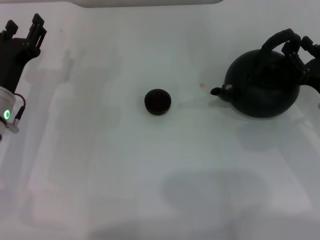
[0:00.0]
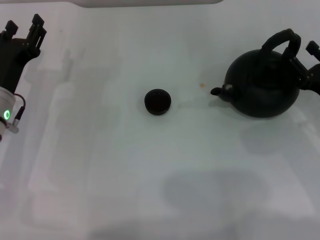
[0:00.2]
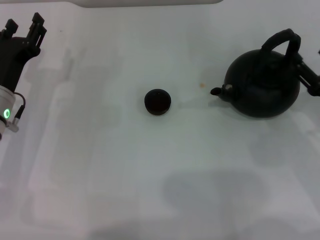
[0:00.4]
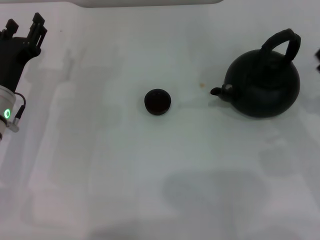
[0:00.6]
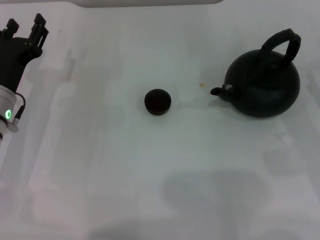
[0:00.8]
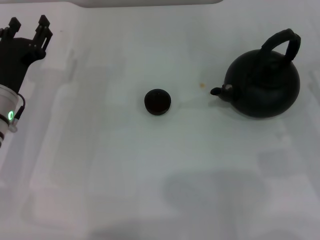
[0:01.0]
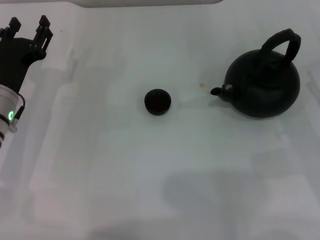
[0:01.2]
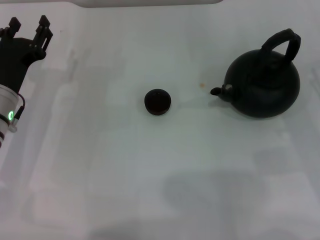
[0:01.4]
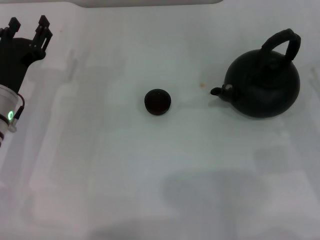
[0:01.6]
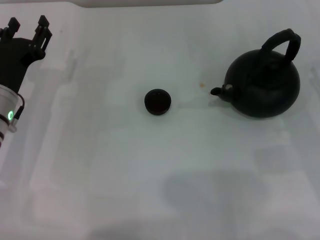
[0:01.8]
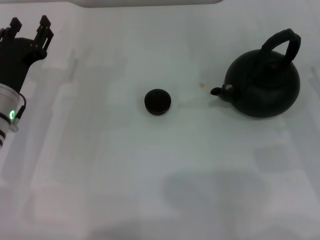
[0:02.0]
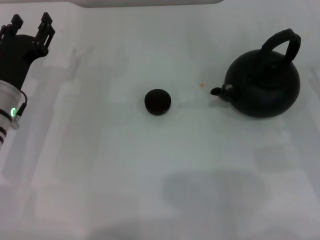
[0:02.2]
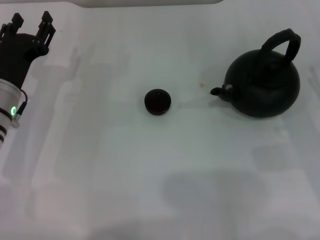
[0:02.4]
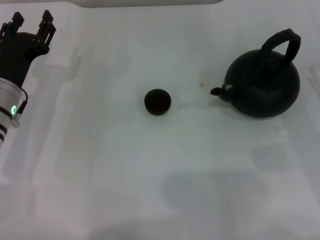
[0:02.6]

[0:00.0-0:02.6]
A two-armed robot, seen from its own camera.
Task of the whole recording: Grasp the handle of the teapot with one hand and pour tea into the teacup.
0.0 to 1.2 s: The right gripper changes place by approximately 5 cm, and opens up.
1.2 to 2.6 s: Neither gripper changes place.

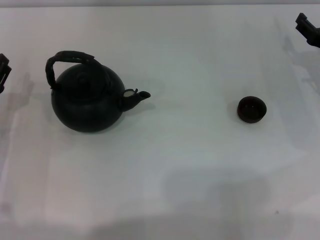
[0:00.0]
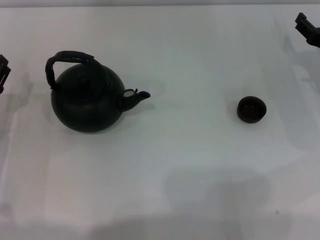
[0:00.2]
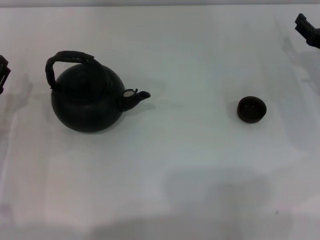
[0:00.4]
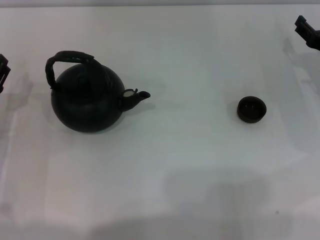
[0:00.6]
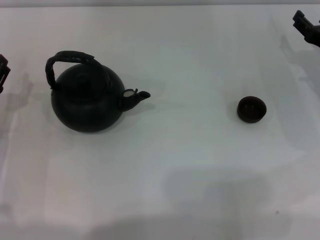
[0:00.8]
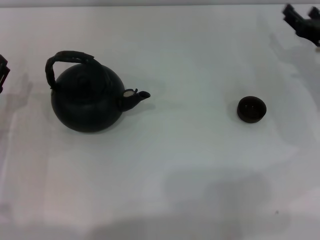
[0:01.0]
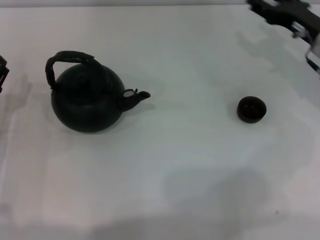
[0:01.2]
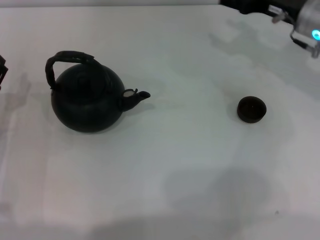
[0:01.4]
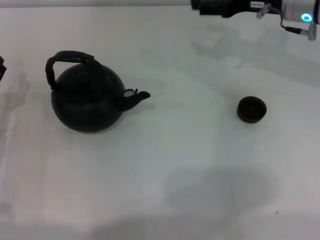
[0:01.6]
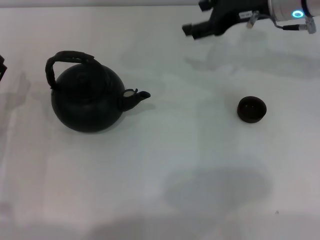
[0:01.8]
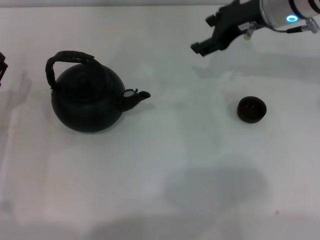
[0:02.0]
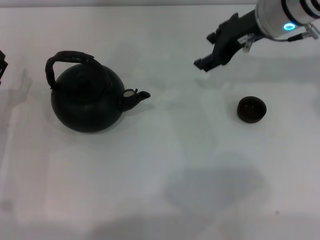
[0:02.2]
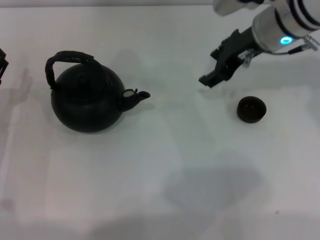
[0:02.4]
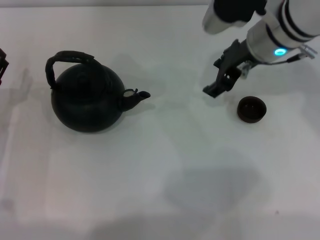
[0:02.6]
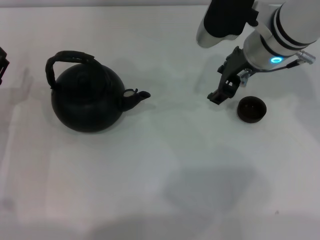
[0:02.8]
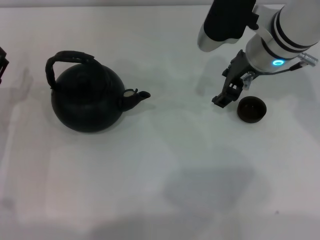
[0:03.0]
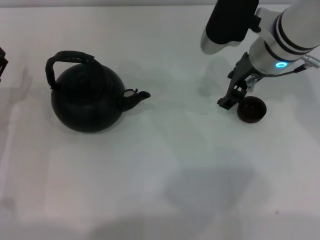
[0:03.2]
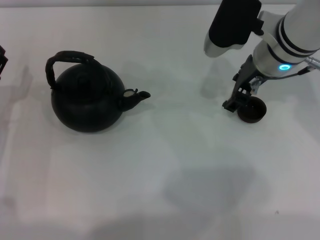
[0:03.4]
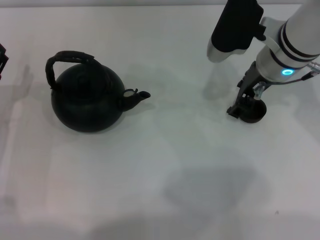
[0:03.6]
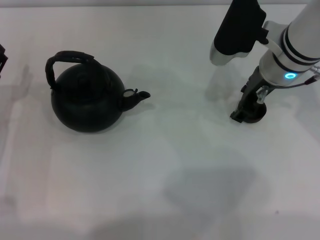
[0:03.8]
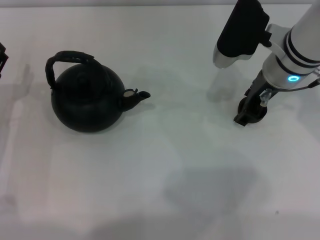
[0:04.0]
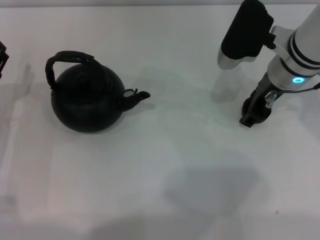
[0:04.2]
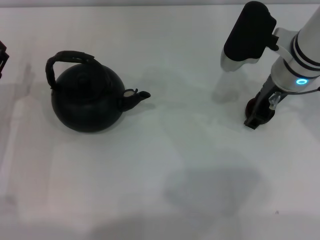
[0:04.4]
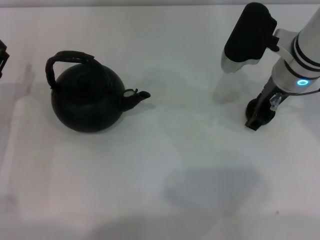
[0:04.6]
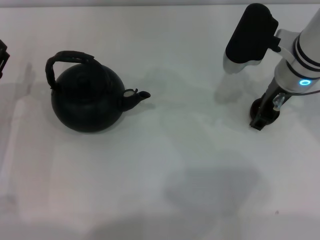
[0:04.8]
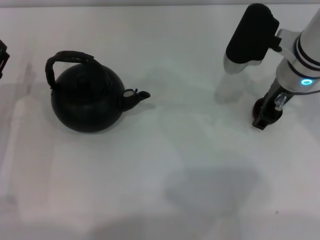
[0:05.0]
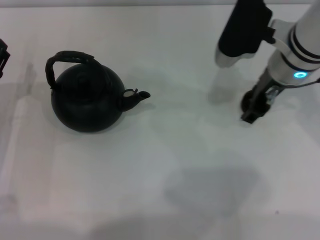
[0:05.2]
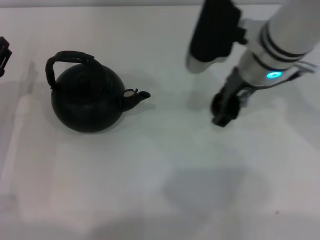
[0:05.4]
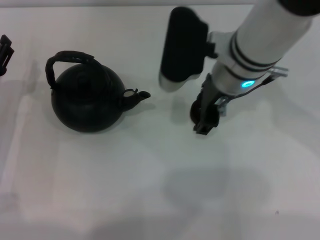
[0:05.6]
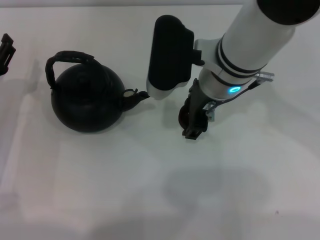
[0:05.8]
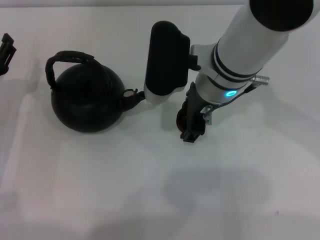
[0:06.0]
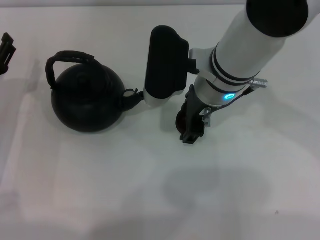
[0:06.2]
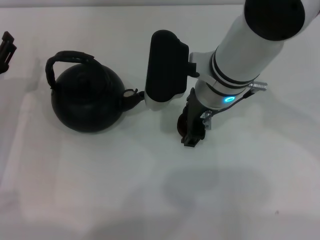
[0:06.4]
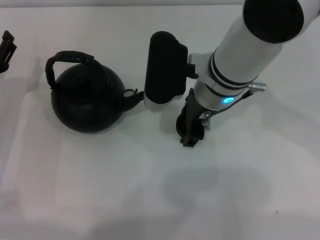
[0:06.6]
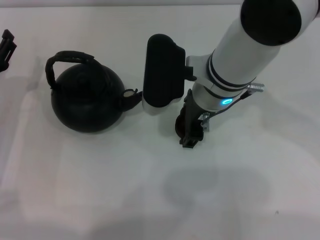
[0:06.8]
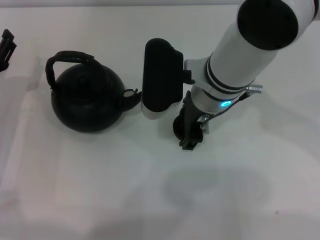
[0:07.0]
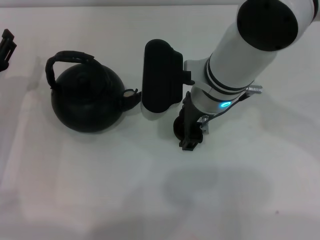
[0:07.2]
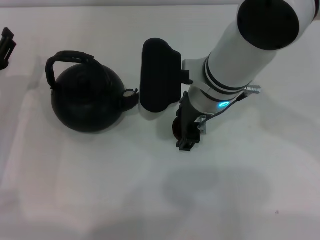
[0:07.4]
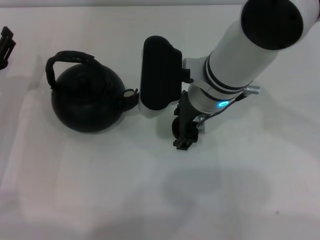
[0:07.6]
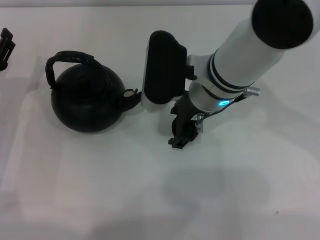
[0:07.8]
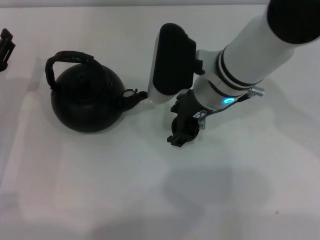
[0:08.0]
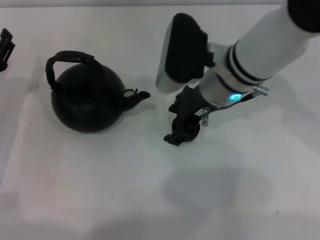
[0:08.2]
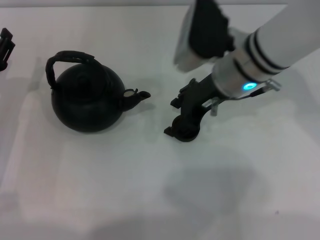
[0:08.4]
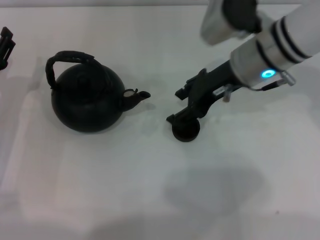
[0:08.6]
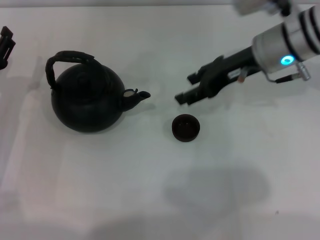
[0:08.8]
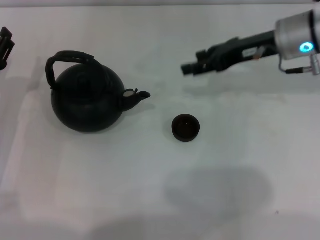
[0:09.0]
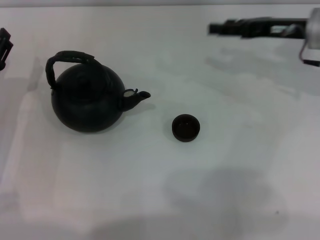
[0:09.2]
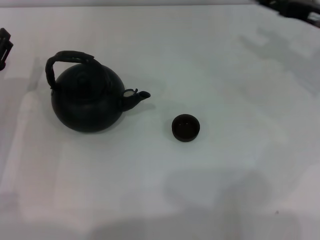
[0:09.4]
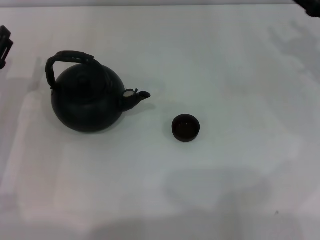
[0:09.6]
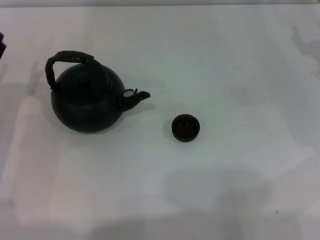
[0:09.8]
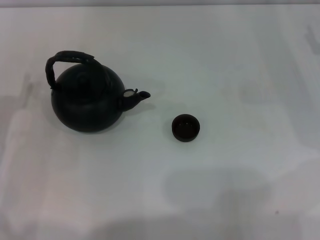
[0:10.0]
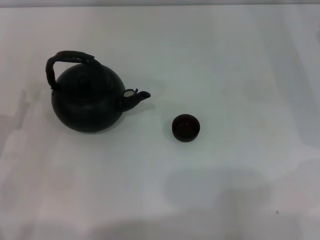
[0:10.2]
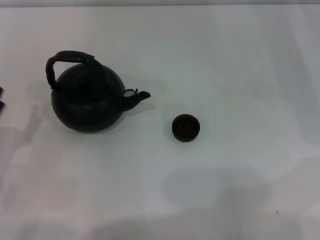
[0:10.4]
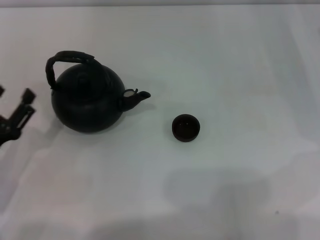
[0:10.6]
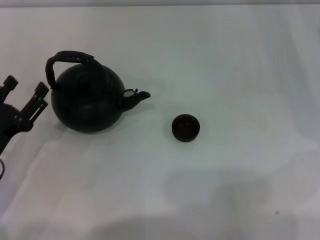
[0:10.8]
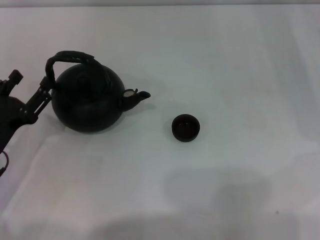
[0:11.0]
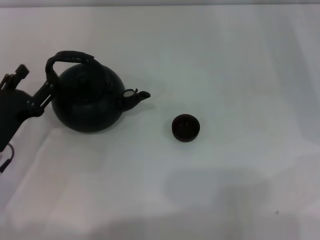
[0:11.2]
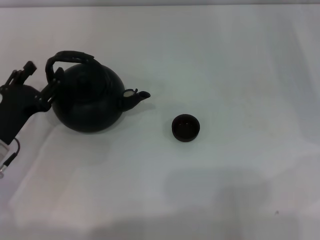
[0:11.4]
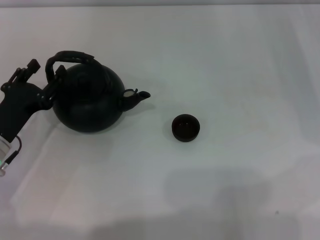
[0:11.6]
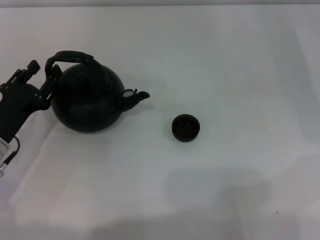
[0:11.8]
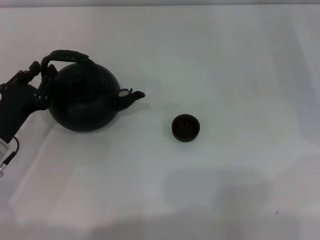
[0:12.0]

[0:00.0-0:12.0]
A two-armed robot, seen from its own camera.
Task of the whole recording: Grasp the handle of the teapot with one hand and pour tea into the teacup.
Step, 0.0 to 5.2 s: Pick up the teacup with the right gripper.
Step, 5.4 to 8.6 s: Place the teacup in the center of view with the right gripper.
0.0 to 1.6 s: The right gripper heads upward, to the left and forward, covering some 15 cm.
1.6 to 3.0 s: The right gripper shifts roughly 5 cm to the left.
3.0 to 4.4 s: The grippers stay close to where they were, moving slightly.
4.4 to 6.0 s: The right gripper shifts some 10 cm to the left.
6.0 to 7.6 s: There are only small adjustments of the grippers.
7.6 to 9.0 s: The right gripper heads to the right, covering approximately 15 cm.
9.0 to 10.4 s: The right gripper shifts approximately 15 cm to the right and downward; the left gripper heads backward, covering roughly 10 cm.
10.4 to 12.0 s: The left gripper heads forward, covering some 5 cm.

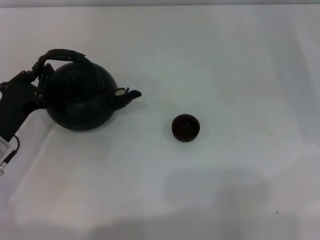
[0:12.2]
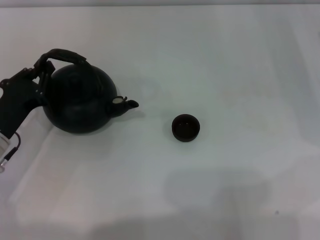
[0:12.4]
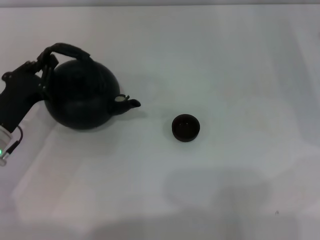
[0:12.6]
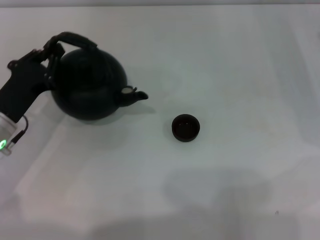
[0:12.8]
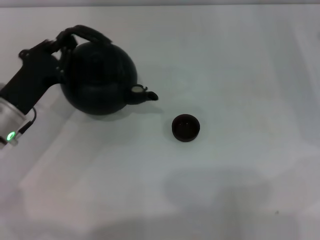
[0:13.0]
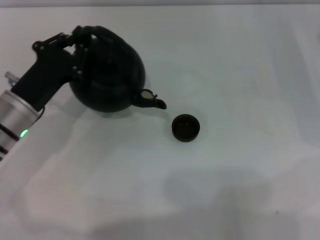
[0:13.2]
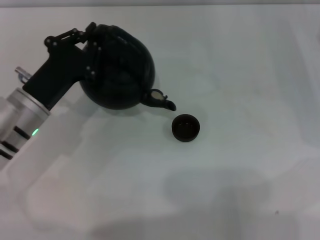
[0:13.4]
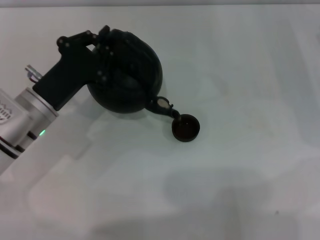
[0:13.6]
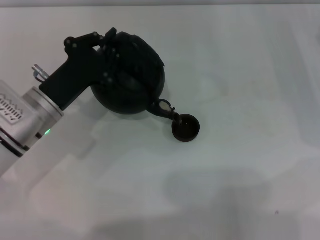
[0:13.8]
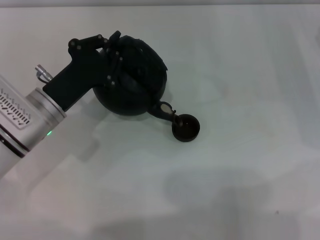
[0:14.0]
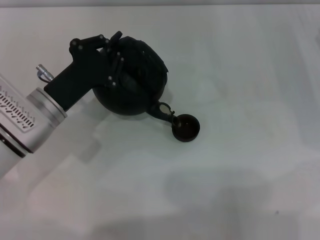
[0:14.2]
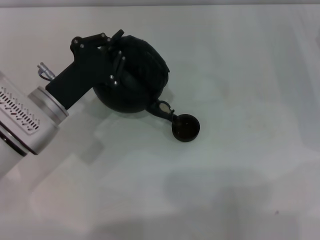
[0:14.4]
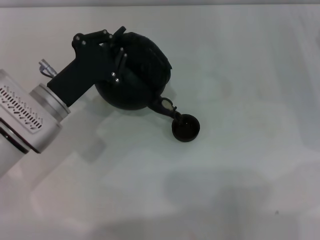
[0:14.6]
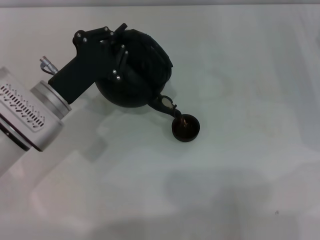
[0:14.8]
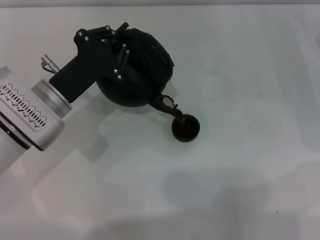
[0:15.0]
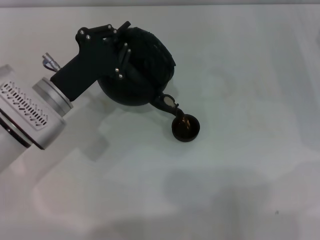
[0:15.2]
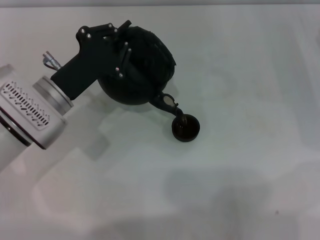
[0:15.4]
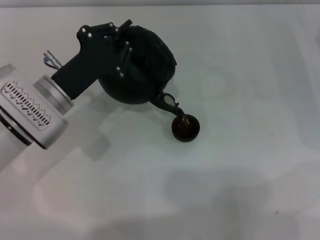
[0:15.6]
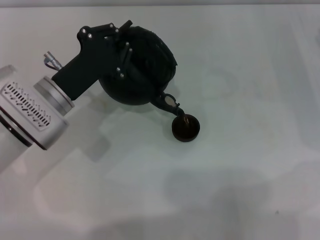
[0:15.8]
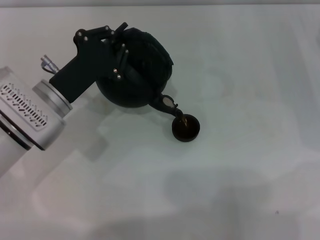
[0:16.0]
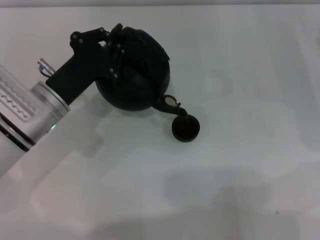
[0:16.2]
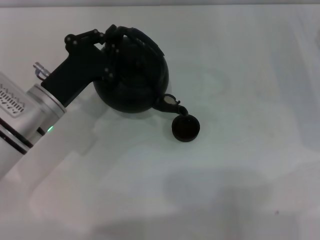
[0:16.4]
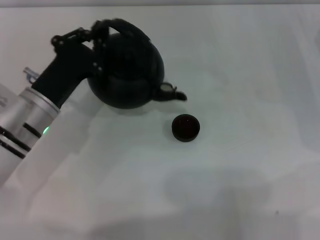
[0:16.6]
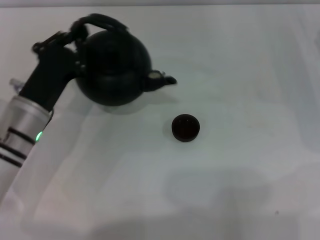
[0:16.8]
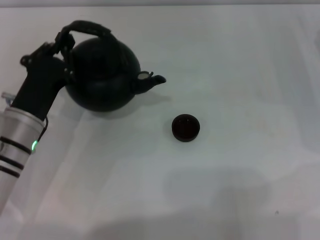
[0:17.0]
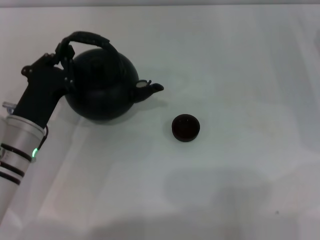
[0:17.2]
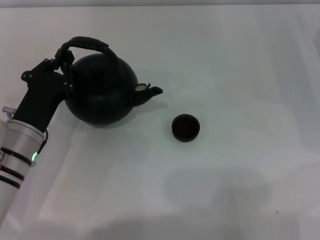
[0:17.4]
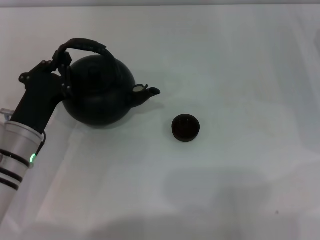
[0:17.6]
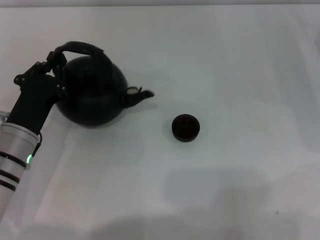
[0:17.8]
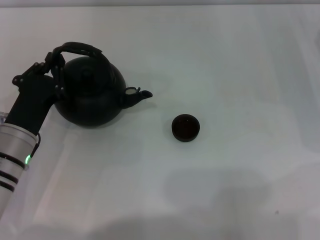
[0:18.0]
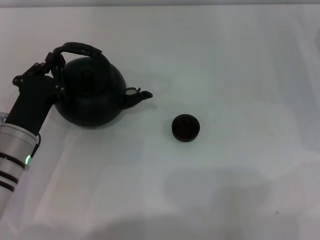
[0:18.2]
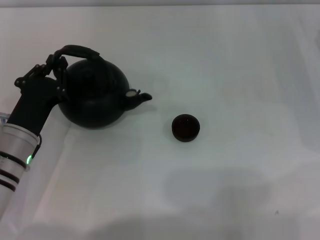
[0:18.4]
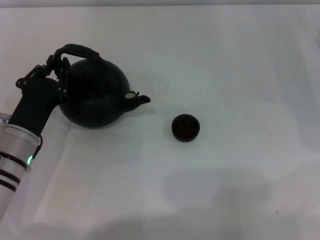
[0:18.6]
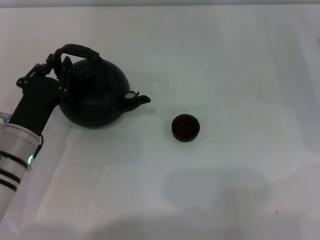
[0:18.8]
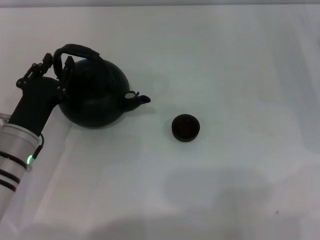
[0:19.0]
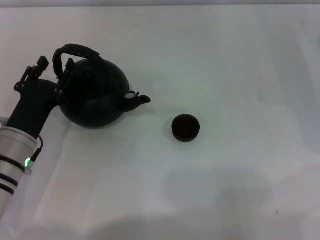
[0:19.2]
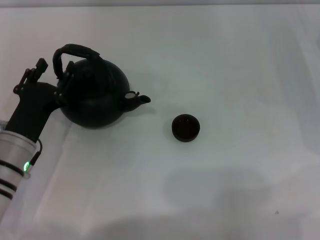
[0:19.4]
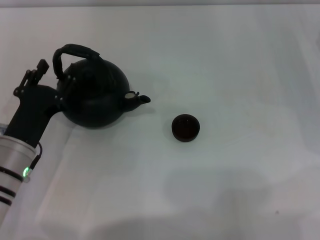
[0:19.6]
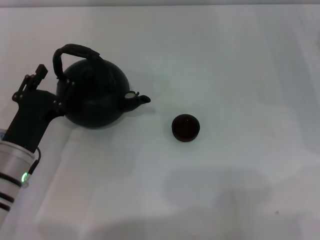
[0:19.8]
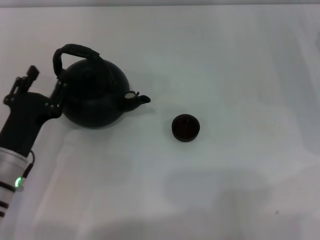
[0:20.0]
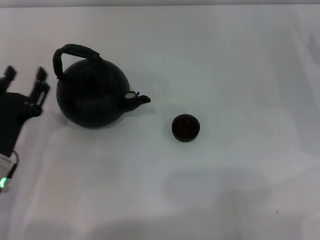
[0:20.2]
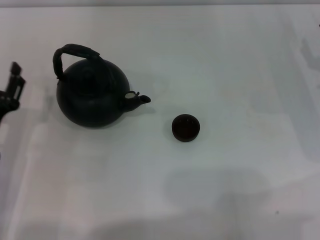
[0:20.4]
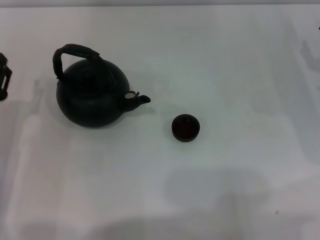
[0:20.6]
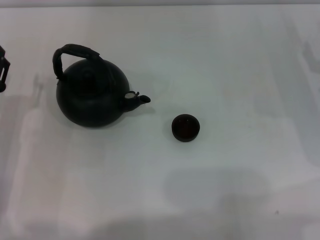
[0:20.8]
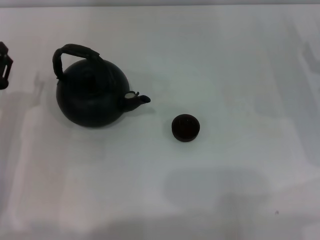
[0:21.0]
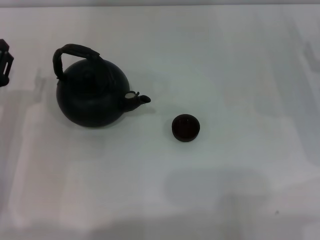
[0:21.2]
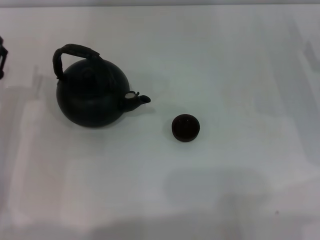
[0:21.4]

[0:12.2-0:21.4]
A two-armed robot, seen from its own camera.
Task of the whole recording: Grasp the handle of the teapot with one hand and pour tea into the teacup.
Step, 13.2 to 16.4 s: Pour tea into the teacup with the left gripper.
Step, 16.6 to 20.2 s: Put down the teapot with the left gripper.
12.2 to 13.8 s: The left gripper goes roughly 5 cm to the right, and closes its fingers.
13.8 to 15.2 s: There are only small adjustments of the grippers.
16.8 to 18.4 s: The grippers move only a little.
18.4 to 19.8 s: The left gripper opens up.
19.8 to 21.4 s: The left gripper goes approximately 5 cm to the left.
